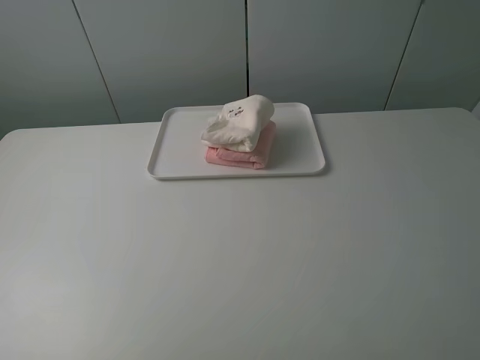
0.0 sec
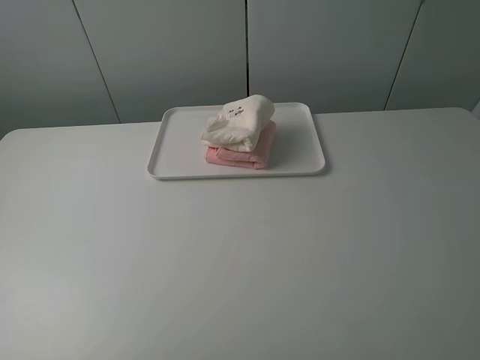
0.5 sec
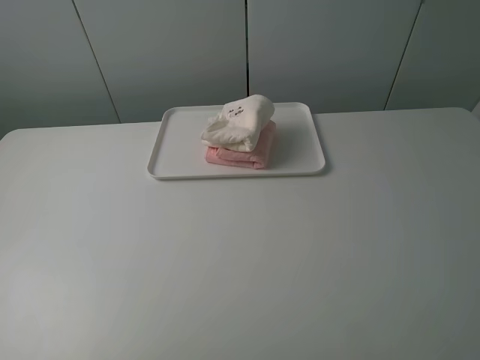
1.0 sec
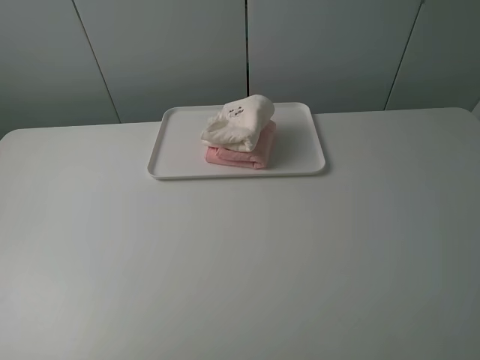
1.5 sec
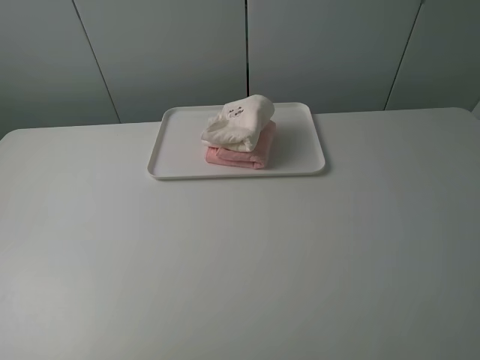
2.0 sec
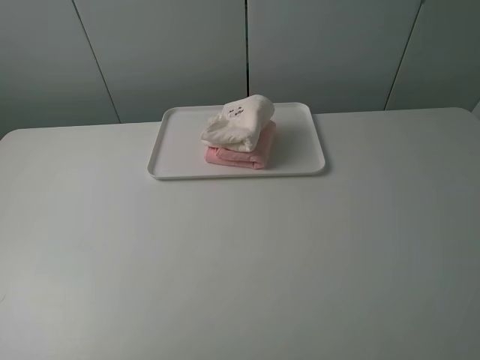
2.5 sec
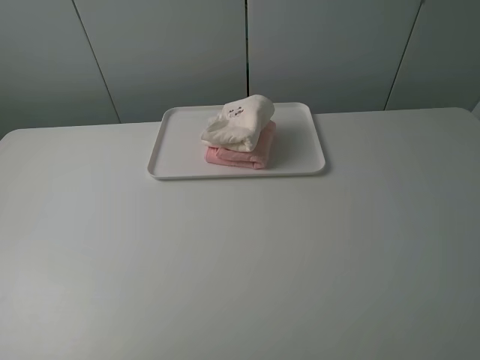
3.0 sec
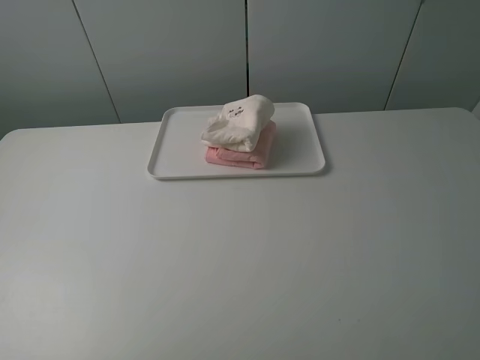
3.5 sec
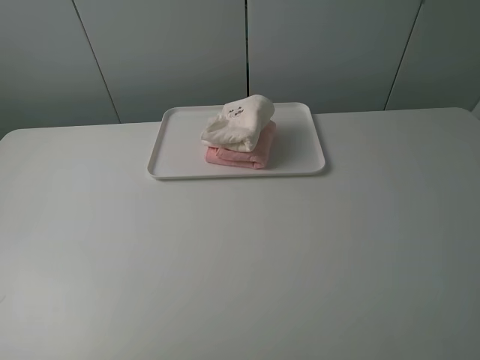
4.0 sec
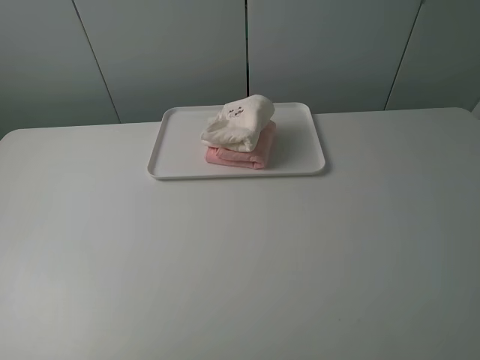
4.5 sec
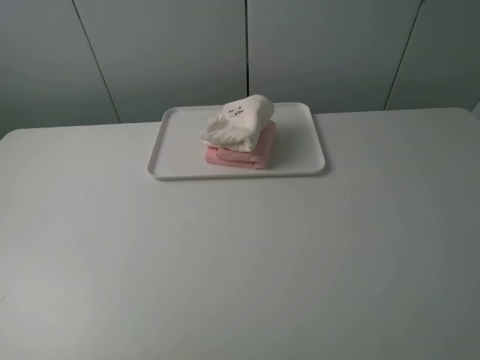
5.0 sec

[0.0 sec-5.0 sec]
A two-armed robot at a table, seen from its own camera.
Task of the whole recording: fold one of the towels by two grippers and place it on the tray,then fold another towel by two grippers and place it on the folded towel.
2.5 sec to 5.0 sec: Neither gripper changes place.

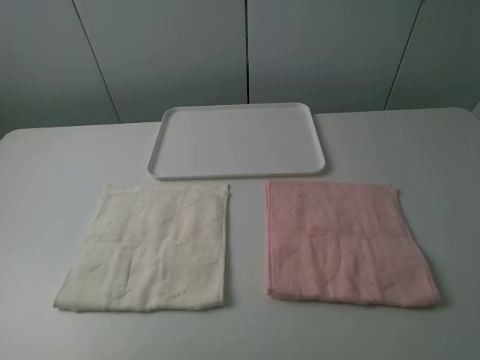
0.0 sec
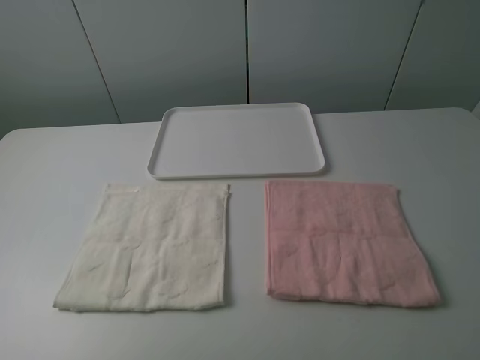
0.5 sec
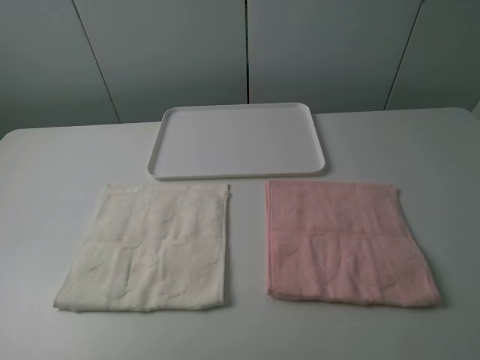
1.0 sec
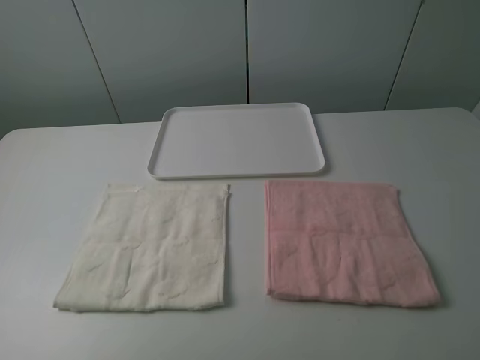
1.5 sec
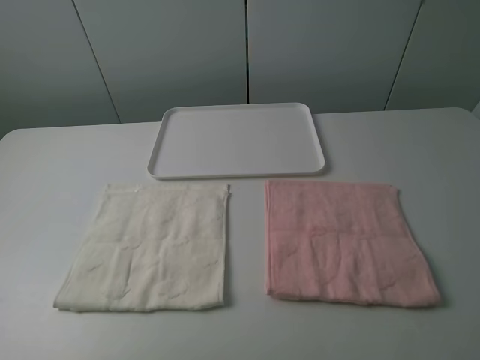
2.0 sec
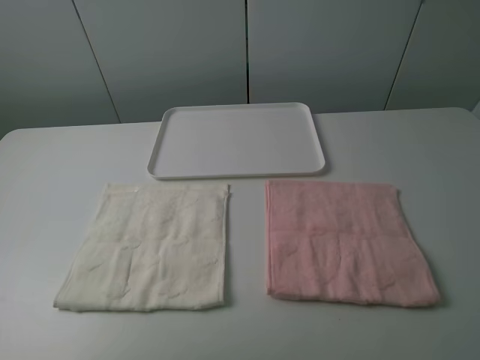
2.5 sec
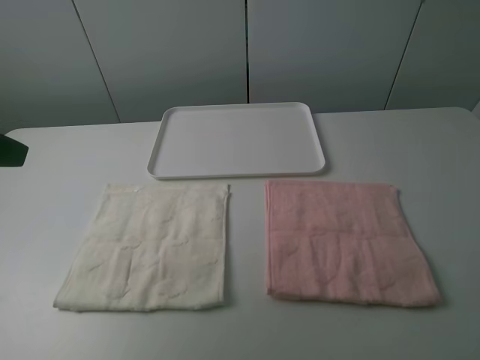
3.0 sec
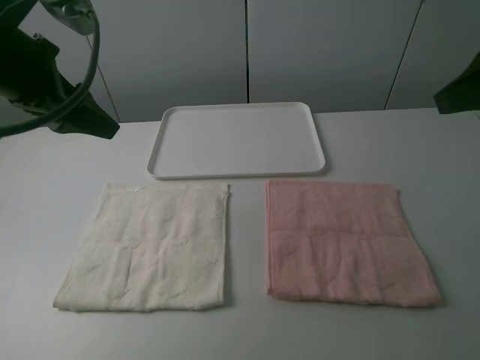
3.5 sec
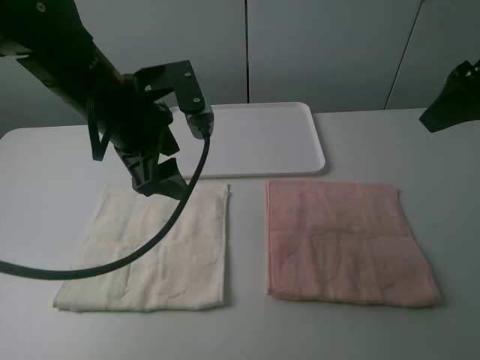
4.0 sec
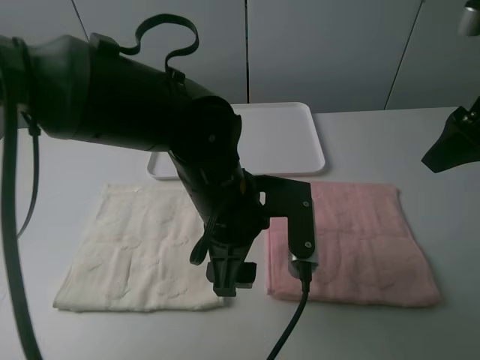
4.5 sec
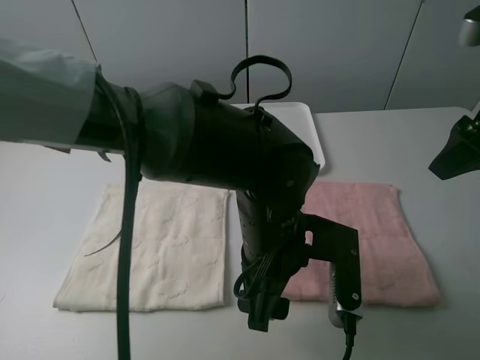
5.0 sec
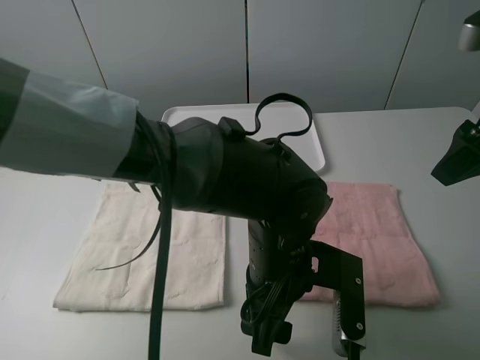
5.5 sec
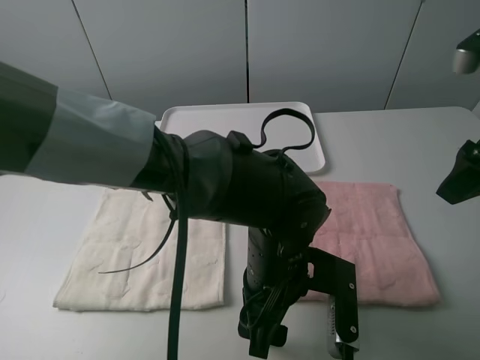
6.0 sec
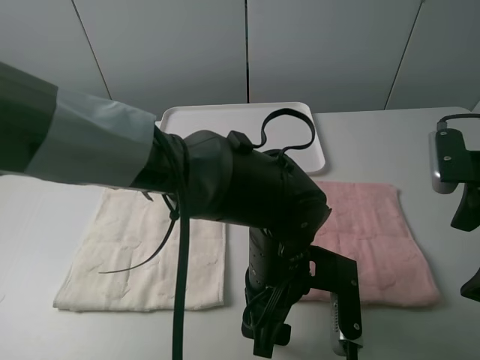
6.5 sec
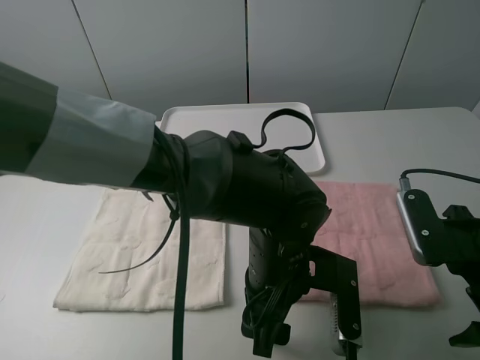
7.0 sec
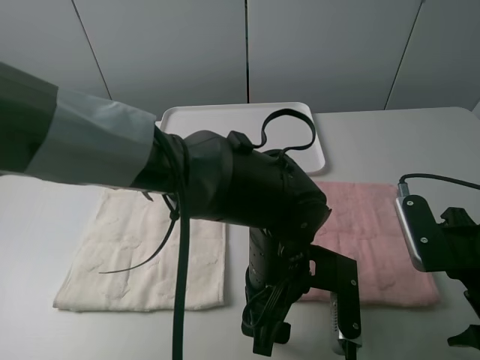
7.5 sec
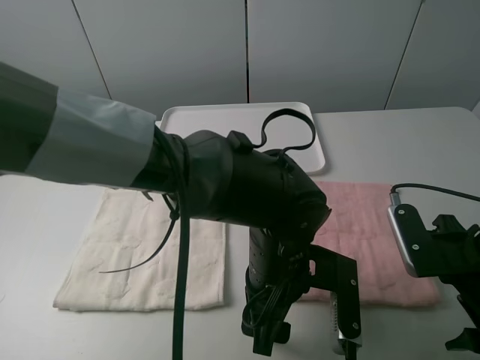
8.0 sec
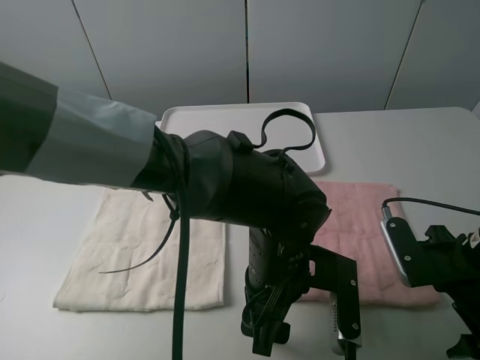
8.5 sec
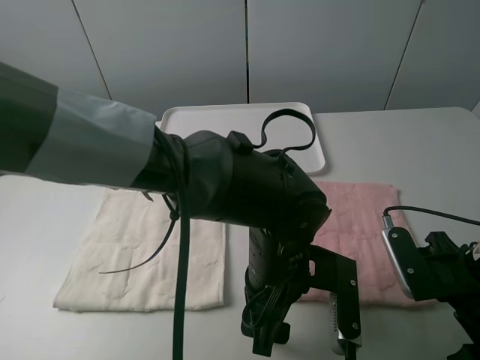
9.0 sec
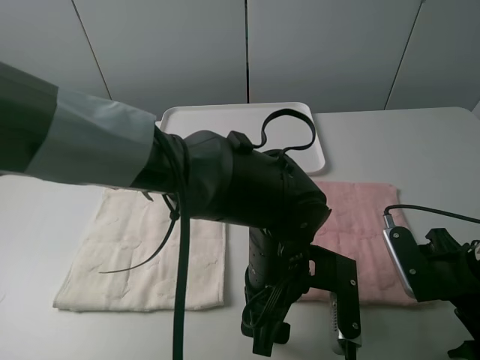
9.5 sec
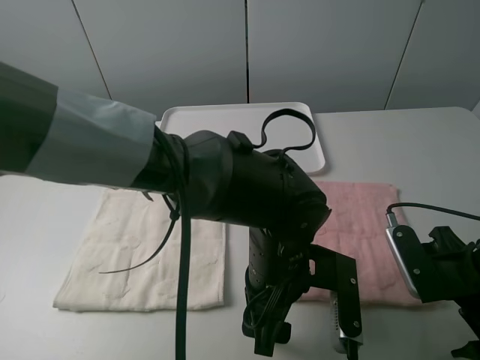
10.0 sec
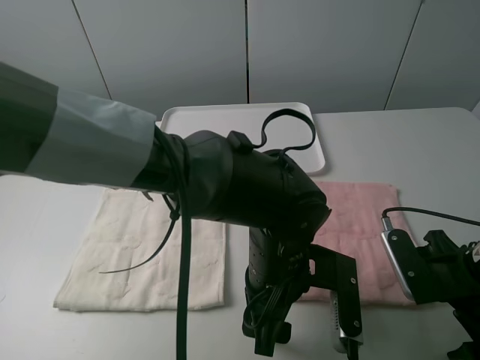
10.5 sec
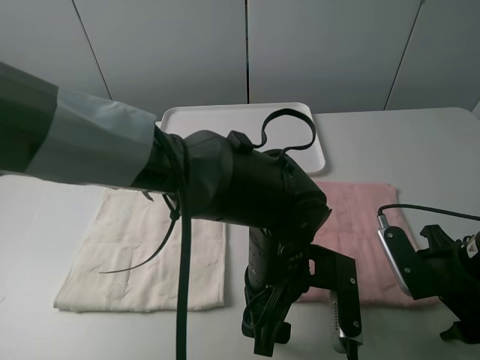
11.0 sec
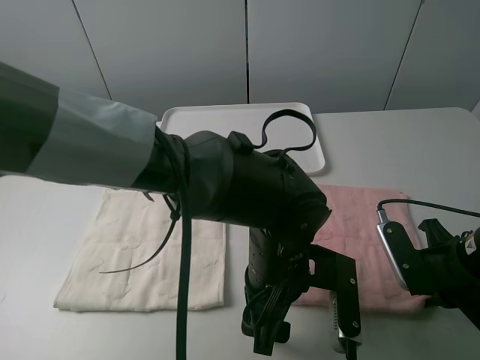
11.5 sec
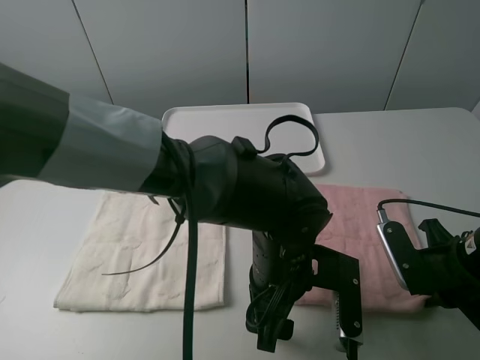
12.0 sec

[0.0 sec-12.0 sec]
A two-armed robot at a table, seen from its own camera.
Task of the whole recording: fold one of the towels by two grippers and place it on the tray,then fold another towel by two grippers and place it on the folded towel.
0.0 sec to 2.0 sec: Both grippers stay put.
2.0 sec to 4.0 sec: The right gripper travels forward by about 25 cm, while the left gripper moves forward and to the right, some 35 cm.
4.0 sec to 6.0 sec: The left gripper goes some 25 cm to the right, downward and backward; the right gripper travels downward by approximately 5 cm.
6.0 sec to 8.0 sec: The right gripper shifts some 15 cm downward and backward.
8.0 sec to 10.0 sec: There are only small adjustments of the grippers.
10.0 sec to 12.0 sec: The right gripper closes its fingers.

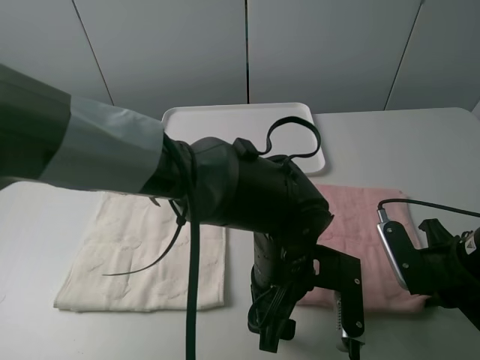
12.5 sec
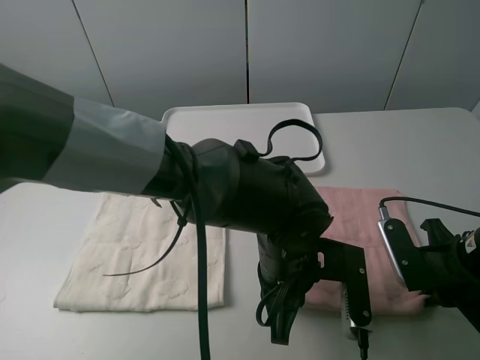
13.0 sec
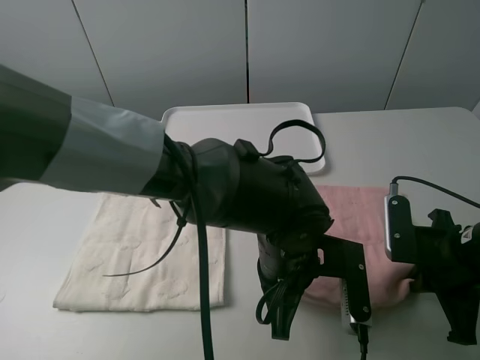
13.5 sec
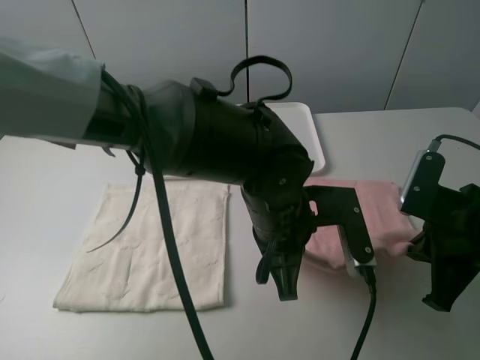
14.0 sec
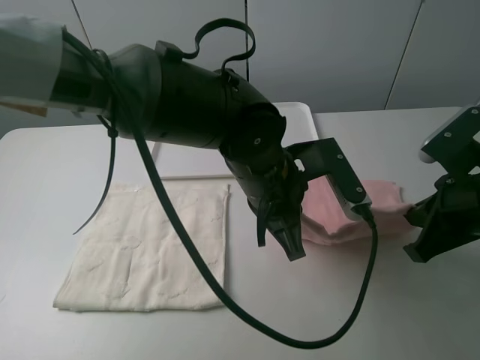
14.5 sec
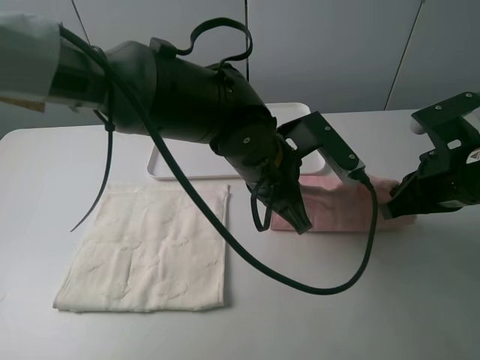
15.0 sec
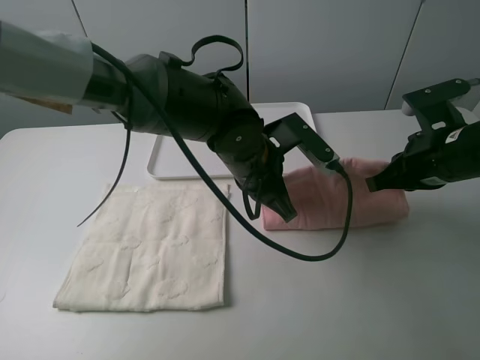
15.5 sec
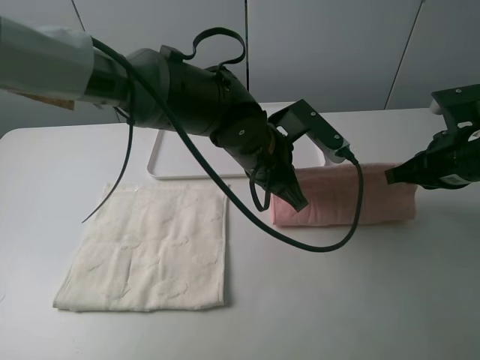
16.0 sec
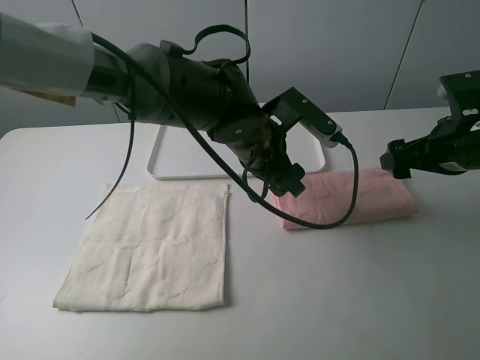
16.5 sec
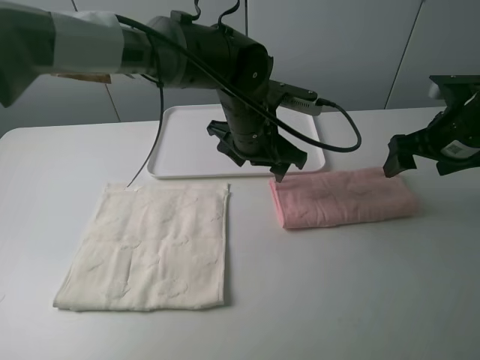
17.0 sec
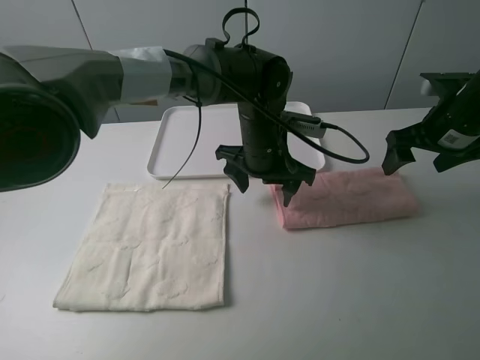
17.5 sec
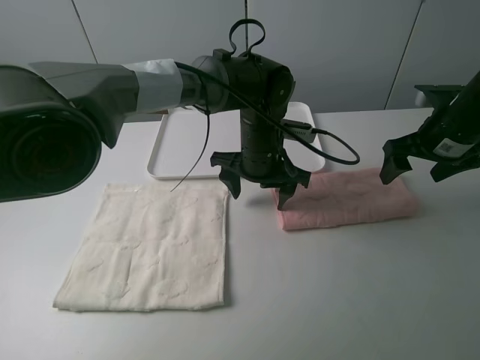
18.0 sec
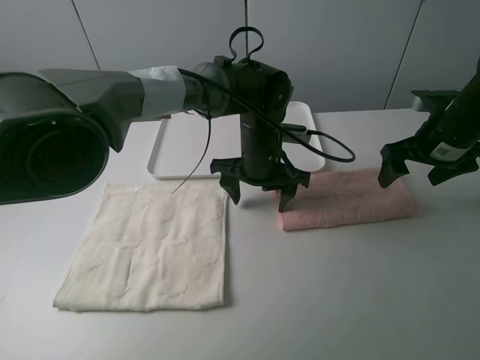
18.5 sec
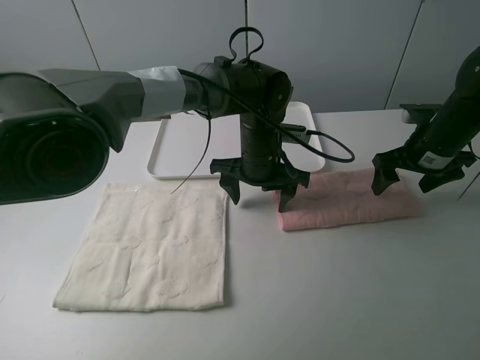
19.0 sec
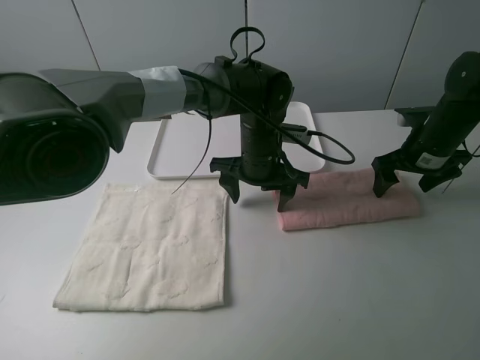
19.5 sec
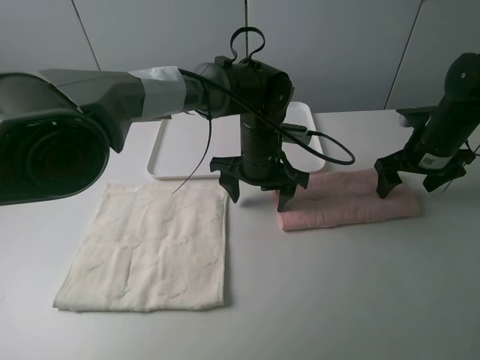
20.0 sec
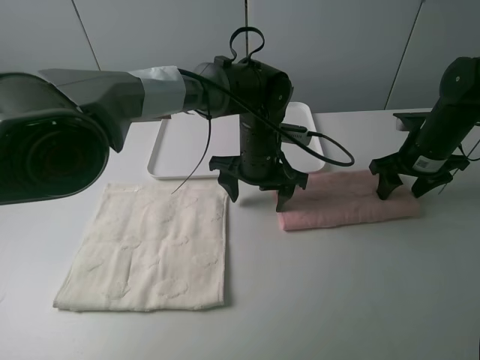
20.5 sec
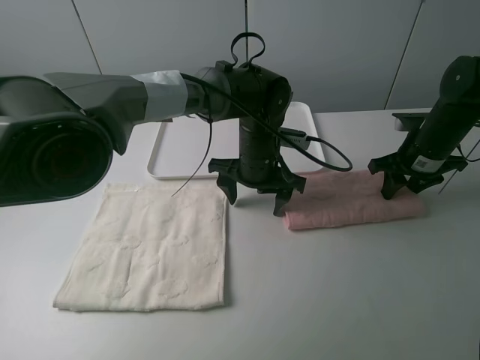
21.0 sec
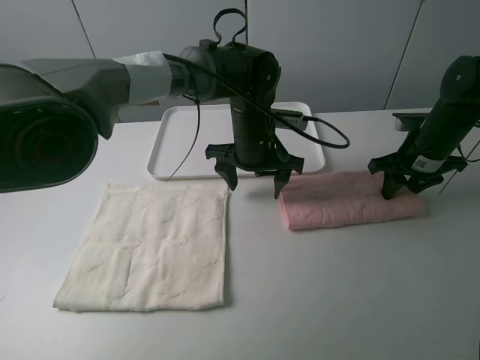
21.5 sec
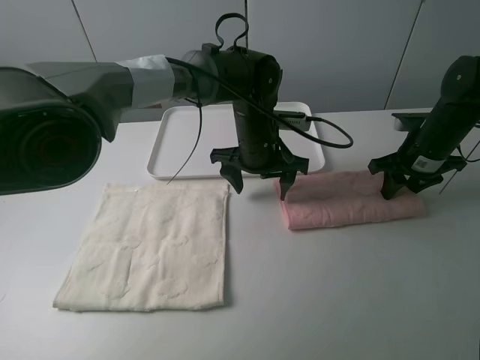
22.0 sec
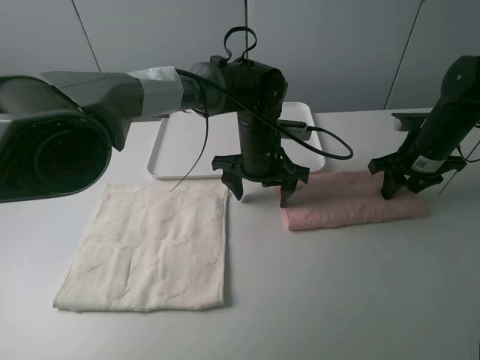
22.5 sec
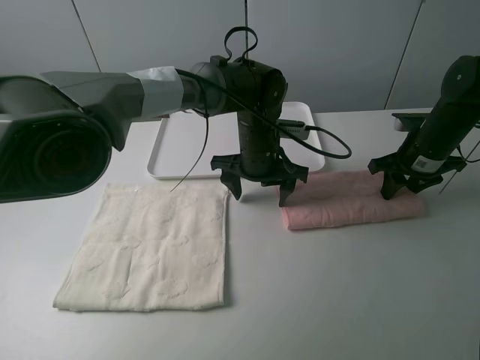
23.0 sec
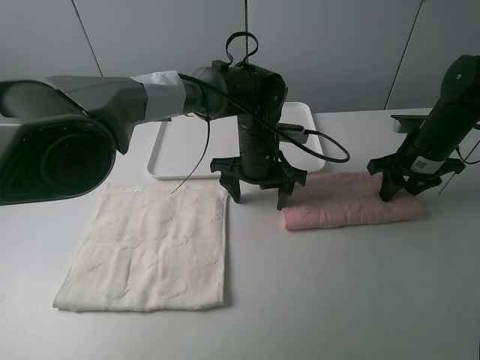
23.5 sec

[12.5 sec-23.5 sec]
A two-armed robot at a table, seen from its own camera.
Task of the whole recording: fold one of the towels by two grippers and place it on the tray,then fold another towel by two grippers and place it on the folded towel.
Step, 13.5 sec to 16.5 sec: Fold the pink towel upwards with the left gripper.
Step, 17.0 sec to 18.5 sec: Press the pink towel with the left gripper.
12.5 sec to 14.5 sec: The left gripper is displaced upward and forward by roughly 10 cm, and closes its fingers, while the right gripper moves upward, approximately 10 cm.
14.5 sec to 16.0 sec: The grippers both shift forward by roughly 5 cm.
16.0 sec to 18.0 sec: Both grippers travel together forward, roughly 5 cm. The left gripper opens up. The right gripper opens up.
18.0 sec to 20.0 sec: The right gripper heads downward, covering some 5 cm.
20.0 sec to 21.5 sec: The right gripper closes up.
21.5 sec to 23.5 sec: The grippers make only small movements.
